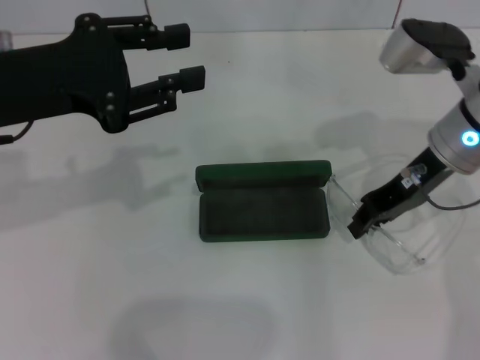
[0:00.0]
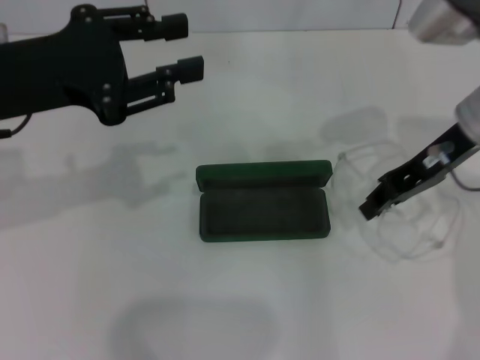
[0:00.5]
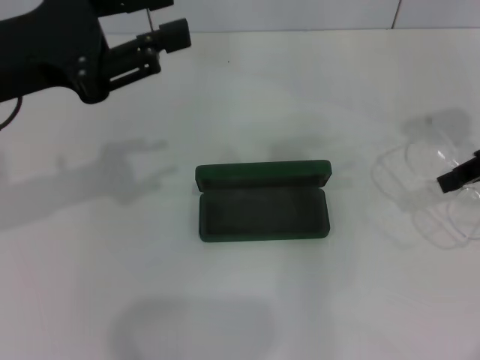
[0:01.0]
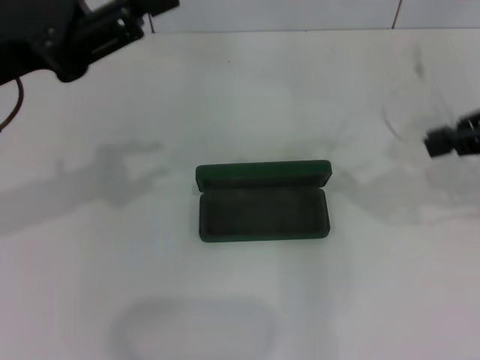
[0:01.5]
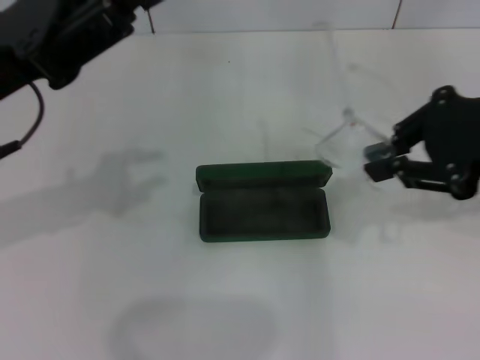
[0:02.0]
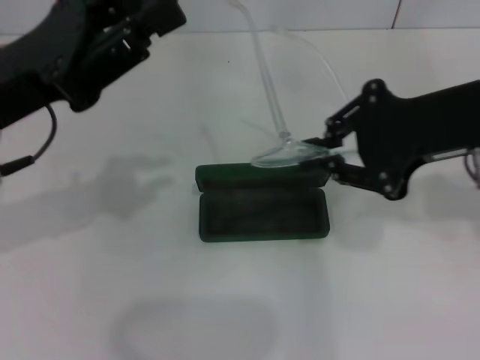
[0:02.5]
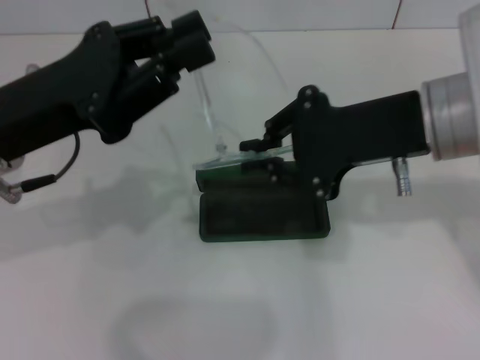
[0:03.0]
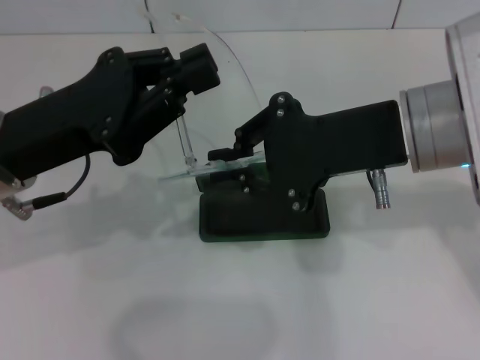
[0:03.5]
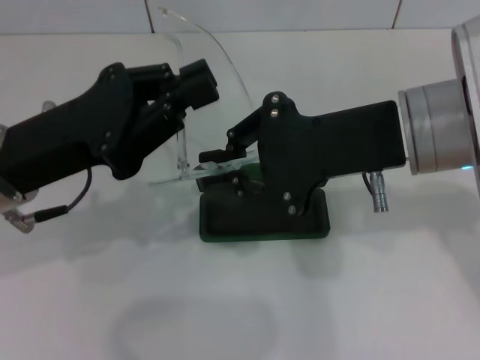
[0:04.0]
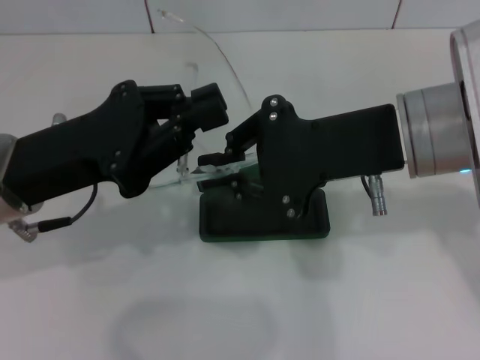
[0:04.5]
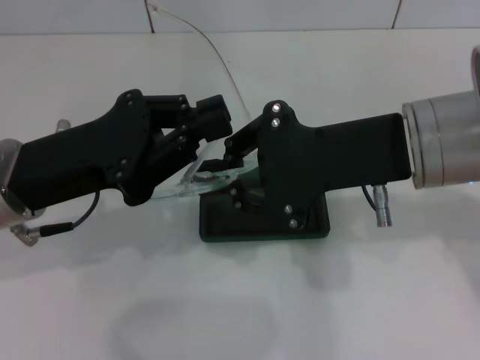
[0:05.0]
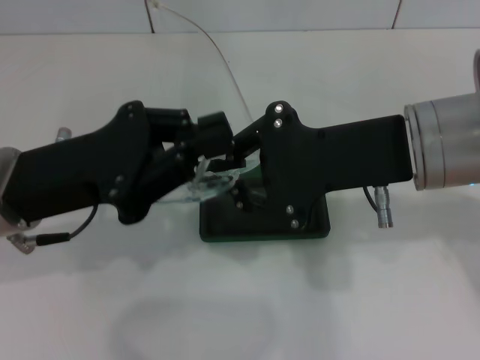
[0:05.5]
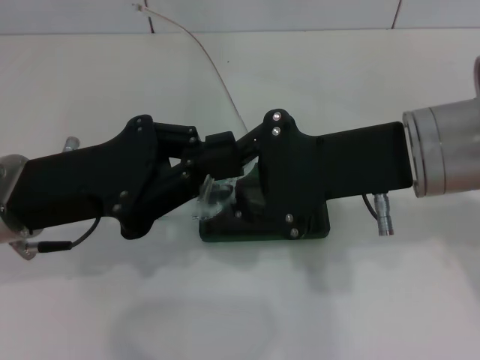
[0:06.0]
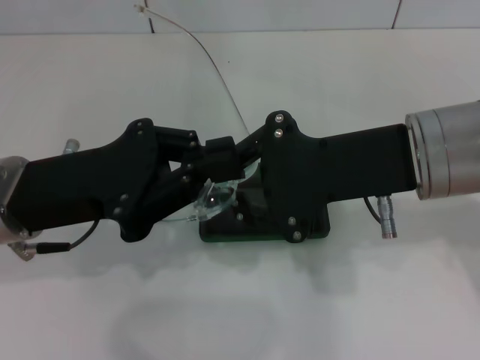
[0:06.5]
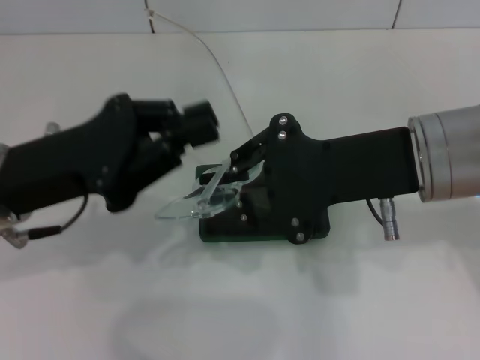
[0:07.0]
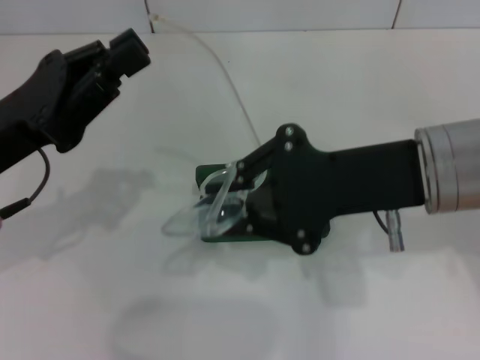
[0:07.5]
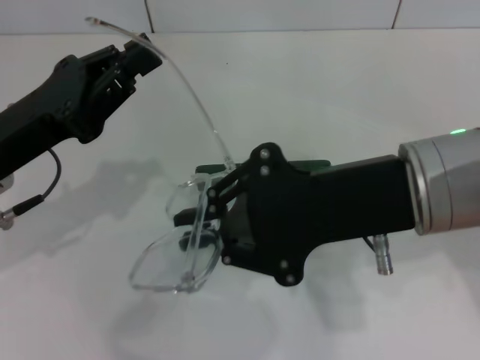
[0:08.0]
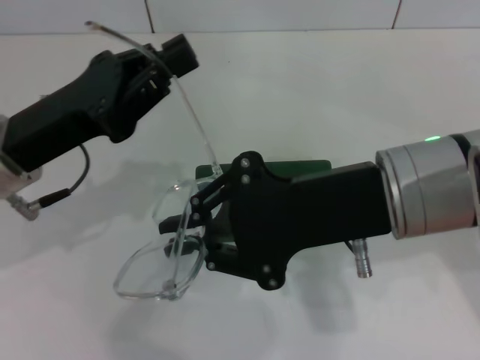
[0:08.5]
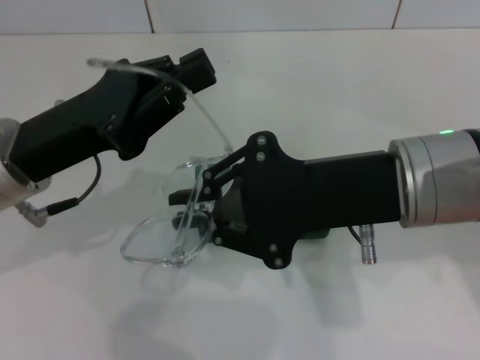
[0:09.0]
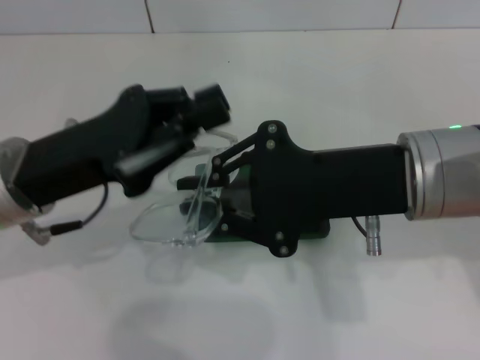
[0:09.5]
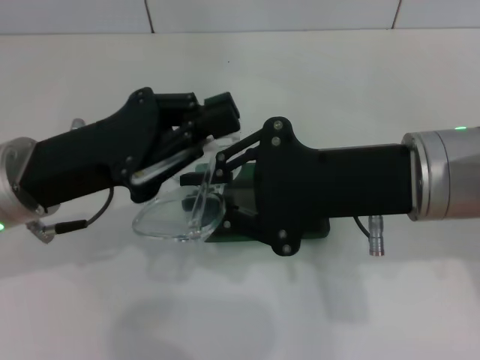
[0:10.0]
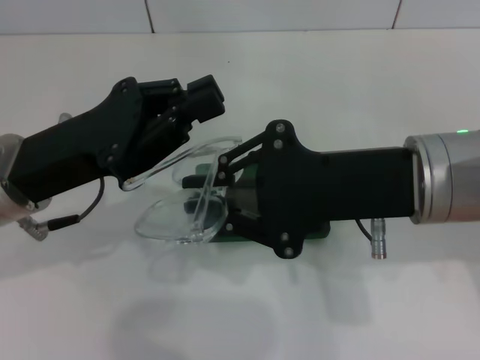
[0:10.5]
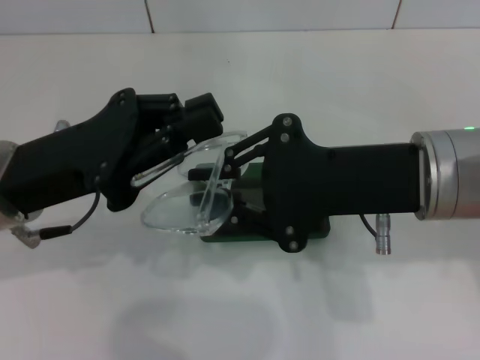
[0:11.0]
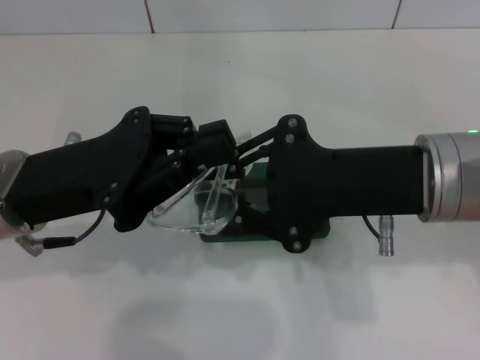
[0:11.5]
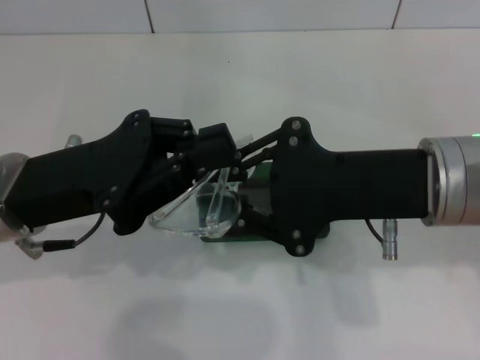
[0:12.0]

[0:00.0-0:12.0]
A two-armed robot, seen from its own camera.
Step, 0:00.0 to 0:09.5: Fold the frame with your left hand.
0:00.0 to 0:02.0: The right gripper moves upward, backward and to the right, about 15 cm.
0:02.0 to 0:04.0: The right gripper heads to the left, covering roughly 10 cm. Meanwhile the left gripper ends up about 5 cm from where it was, and closes.
0:10.0 to 0:12.0: The grippers make only small movements.

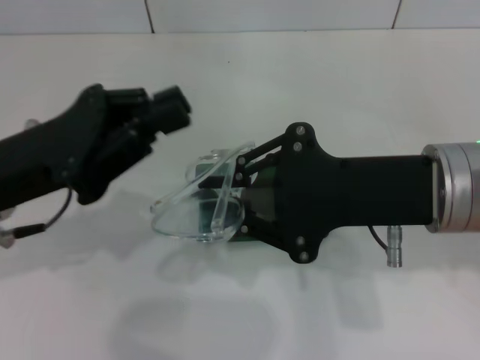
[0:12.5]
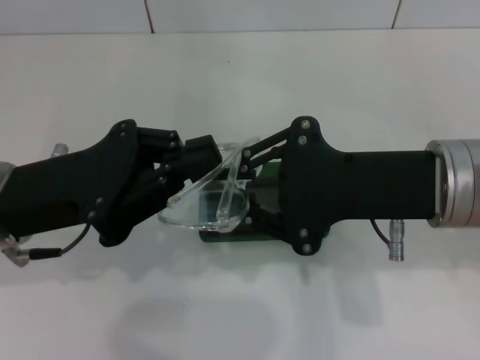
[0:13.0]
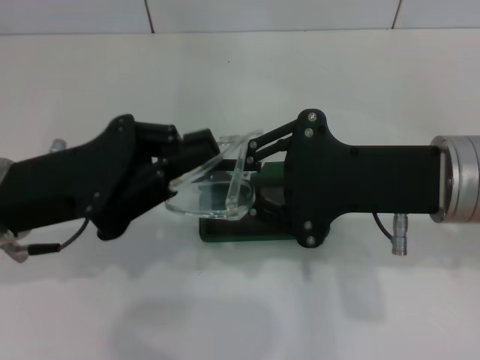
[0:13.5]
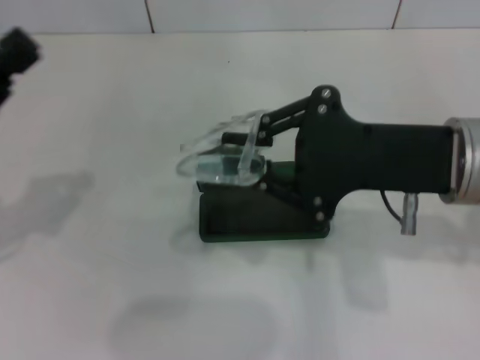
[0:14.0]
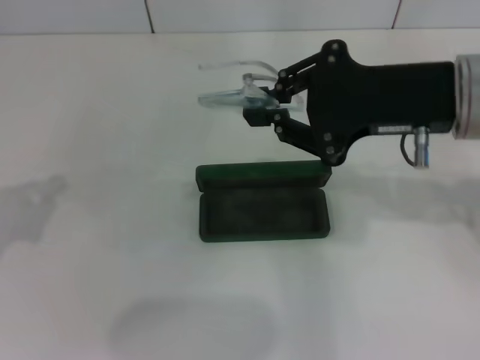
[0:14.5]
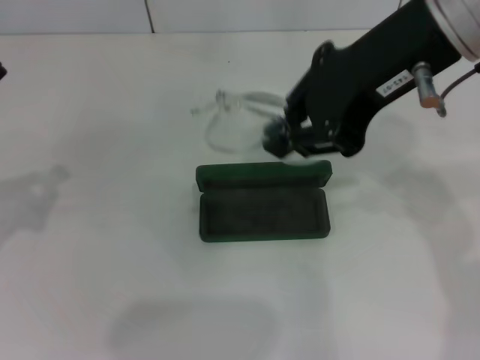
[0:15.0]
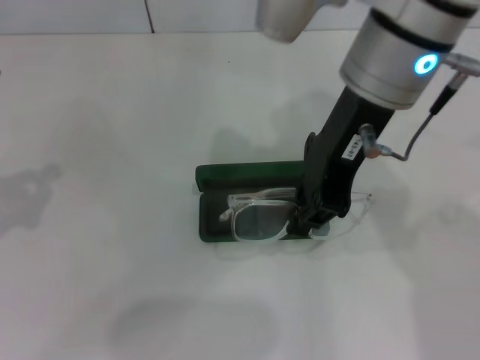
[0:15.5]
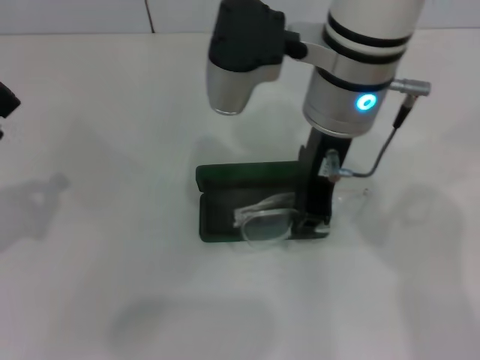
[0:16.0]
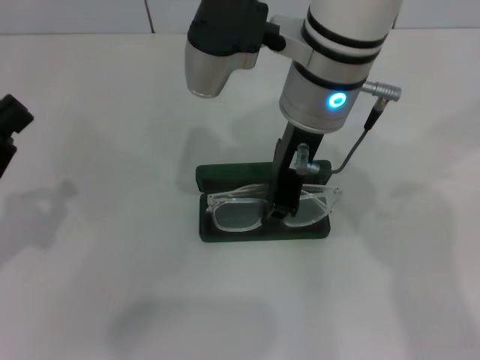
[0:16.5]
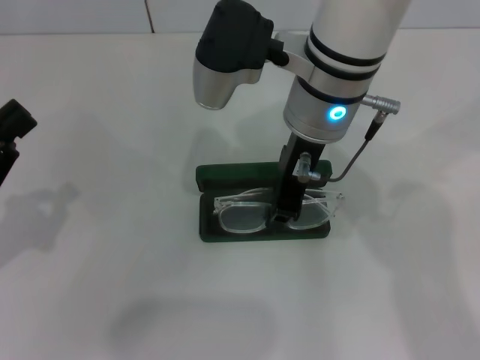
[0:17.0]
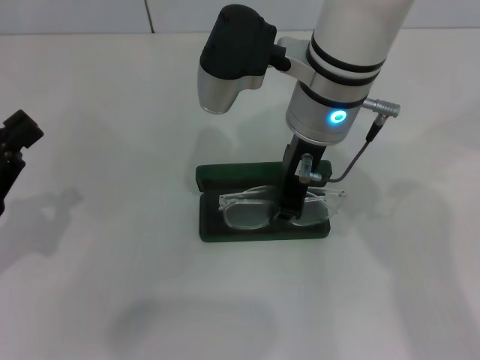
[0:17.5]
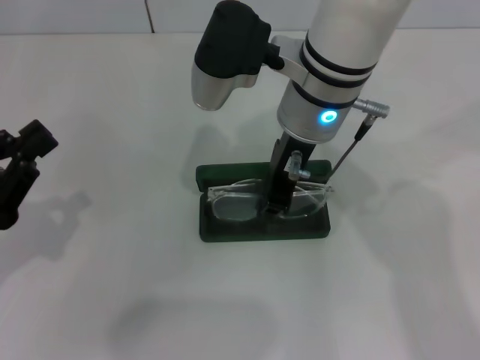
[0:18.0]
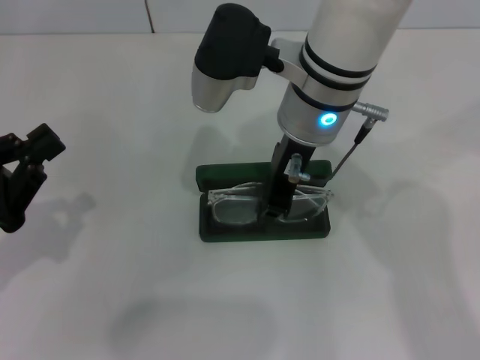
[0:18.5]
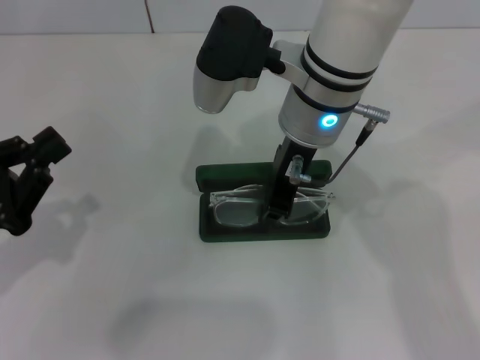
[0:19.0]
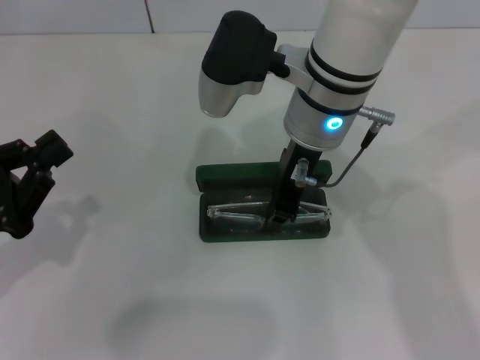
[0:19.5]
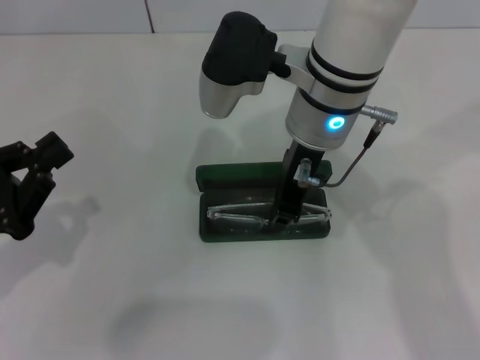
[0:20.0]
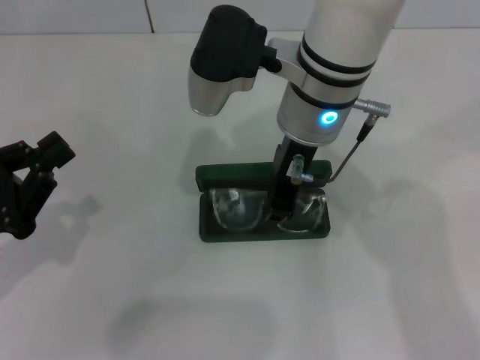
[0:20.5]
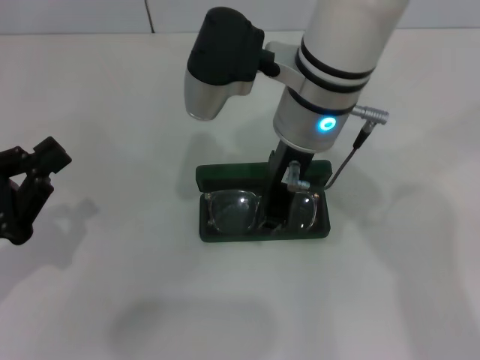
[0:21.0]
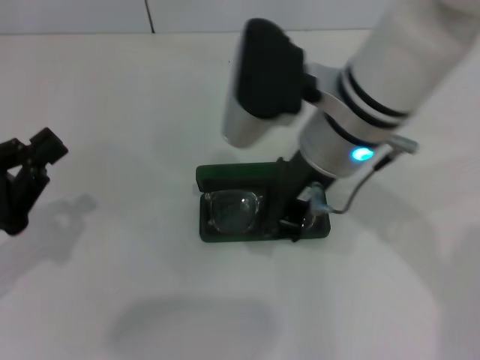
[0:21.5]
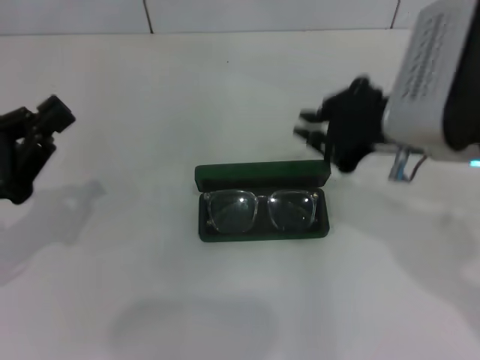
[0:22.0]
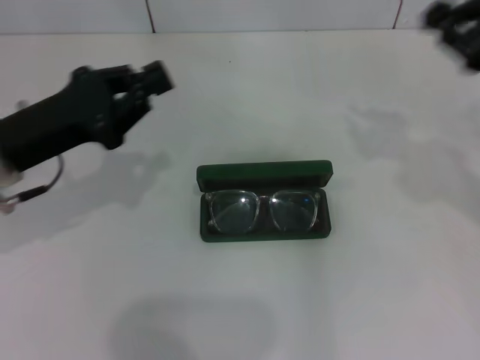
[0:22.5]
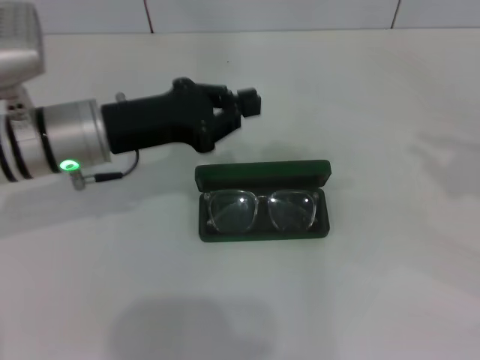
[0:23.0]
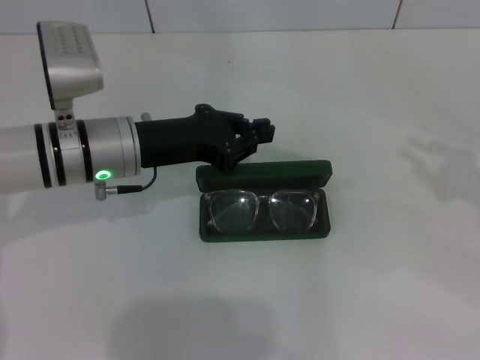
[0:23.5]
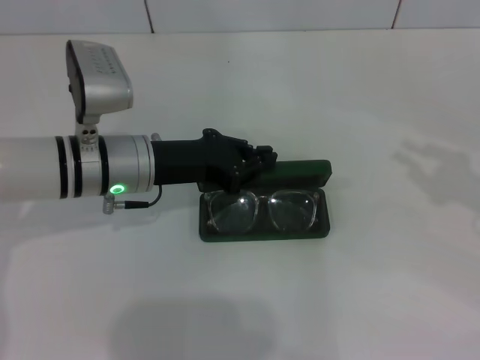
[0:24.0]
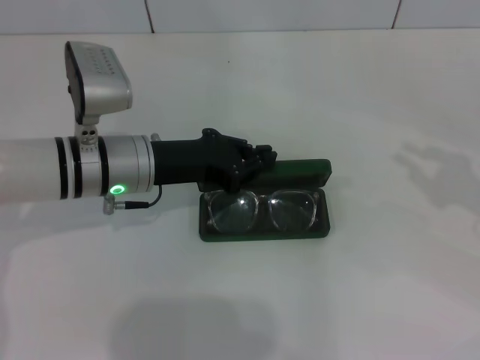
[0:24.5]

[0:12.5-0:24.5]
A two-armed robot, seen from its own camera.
Step, 0:12.5 to 0:21.0: Put the glasses into the case with your right hand.
0:12.5 to 0:14.5: The right gripper shifts by about 5 cm. Meanwhile the left gripper goes about 10 cm to the left.
0:14.5 to 0:16.5: The right gripper is displaced to the left by about 15 cm.
0:16.5 to 0:18.5: The grippers move only a little.
0:18.5 to 0:20.5: Both grippers stay put.
0:20.5 to 0:22.5: The left gripper shifts about 10 cm forward and to the right. The right gripper shifts roughly 25 cm to the right.
0:22.5 to 0:24.5: The right gripper travels to the right and downward by approximately 10 cm; the left gripper is displaced to the right by roughly 10 cm.

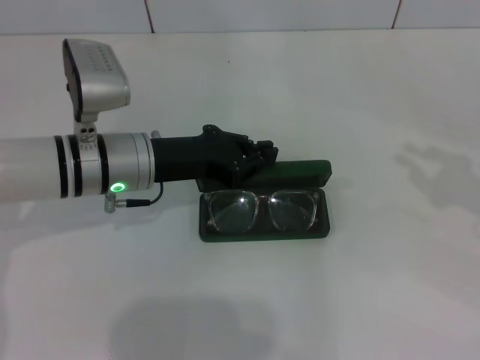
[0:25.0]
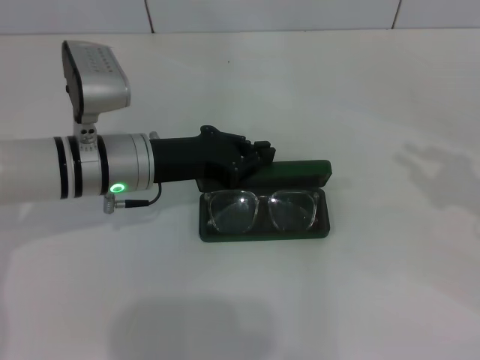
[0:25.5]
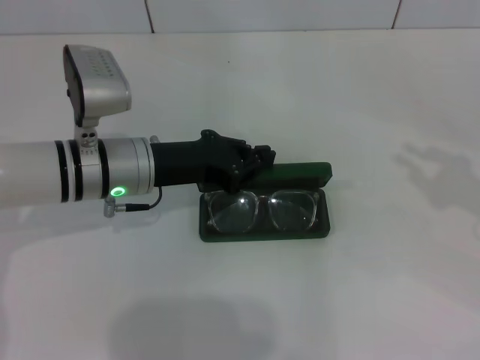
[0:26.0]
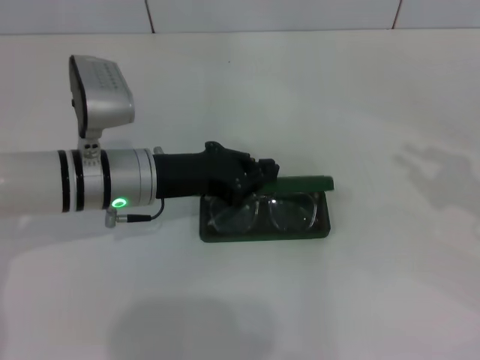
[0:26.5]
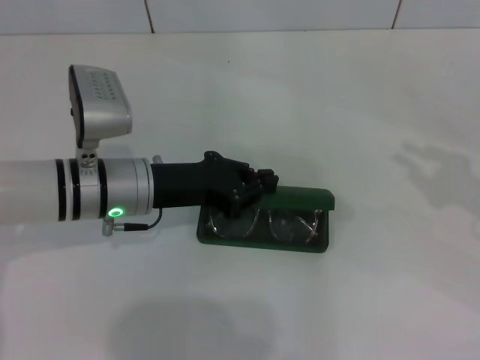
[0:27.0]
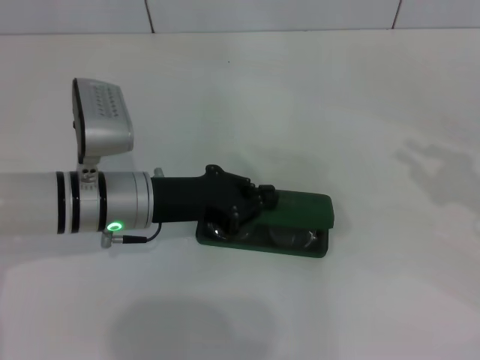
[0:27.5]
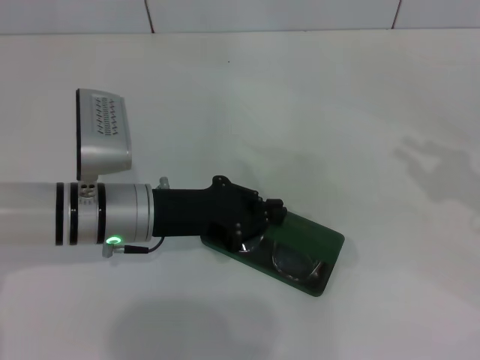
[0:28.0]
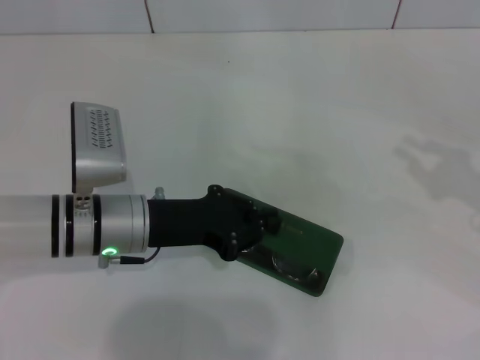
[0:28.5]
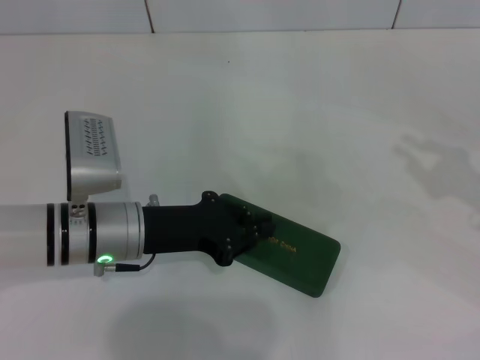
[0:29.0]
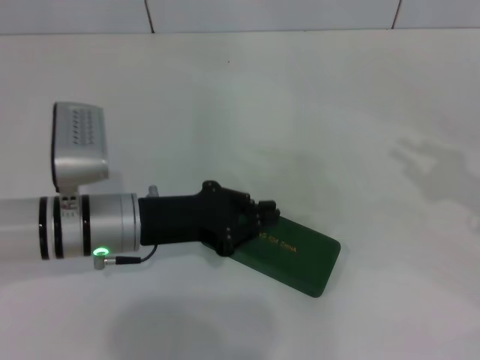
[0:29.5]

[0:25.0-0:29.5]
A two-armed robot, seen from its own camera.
Step, 0:25.0 to 0:29.0: Close the glasses case with your left hand.
0:25.0 to 0:27.0: The grippers stay close to where they were, moving slightly.
0:27.0 to 0:29.5: There are only small adjustments of the grippers.
